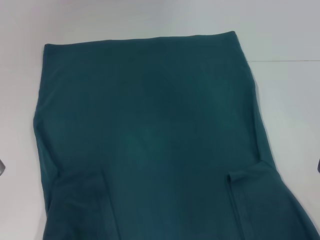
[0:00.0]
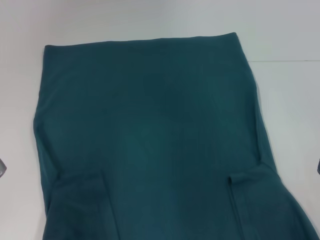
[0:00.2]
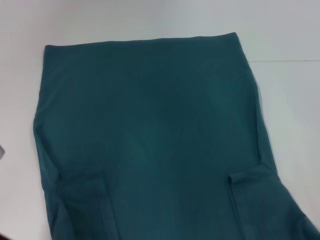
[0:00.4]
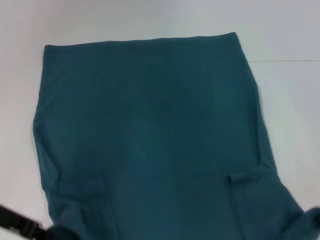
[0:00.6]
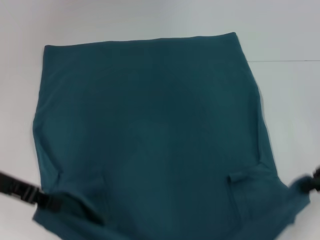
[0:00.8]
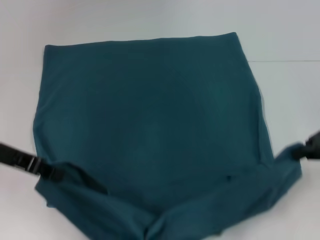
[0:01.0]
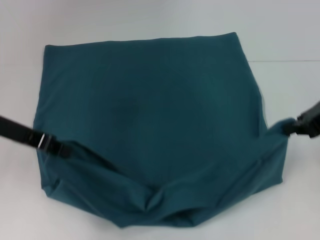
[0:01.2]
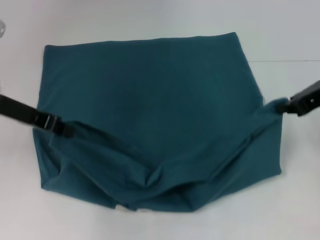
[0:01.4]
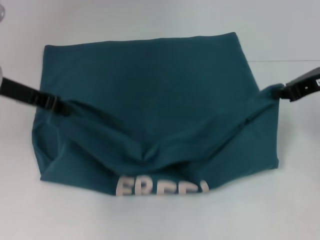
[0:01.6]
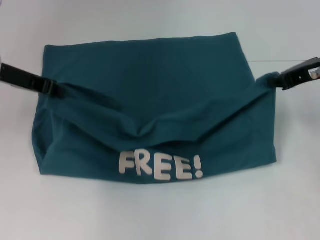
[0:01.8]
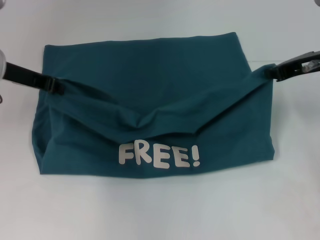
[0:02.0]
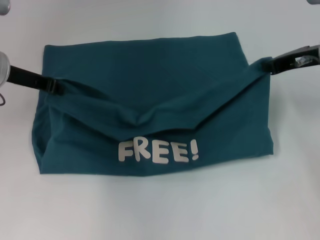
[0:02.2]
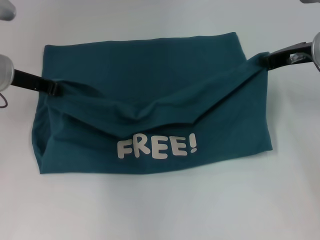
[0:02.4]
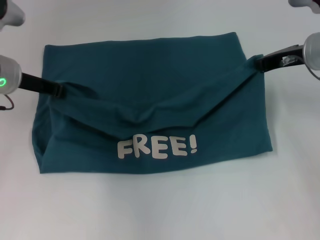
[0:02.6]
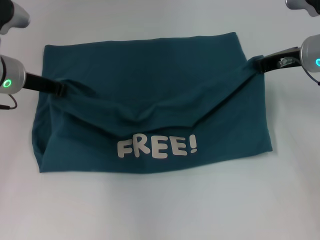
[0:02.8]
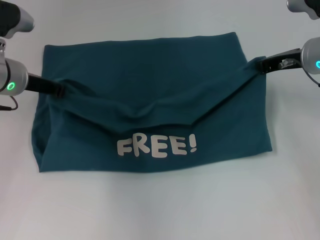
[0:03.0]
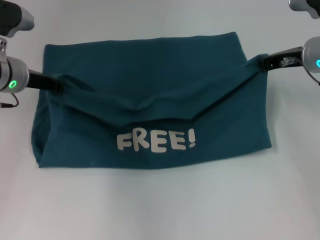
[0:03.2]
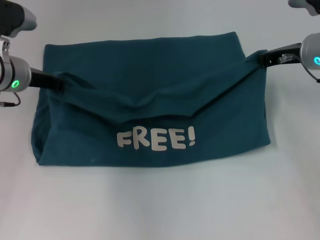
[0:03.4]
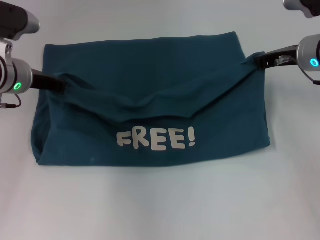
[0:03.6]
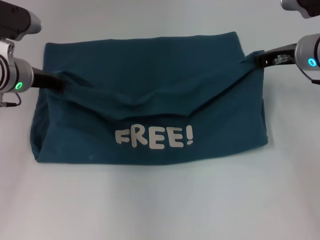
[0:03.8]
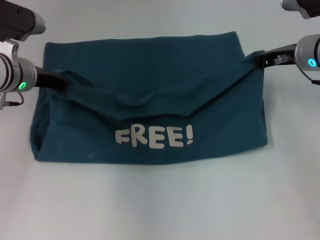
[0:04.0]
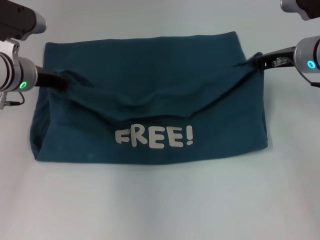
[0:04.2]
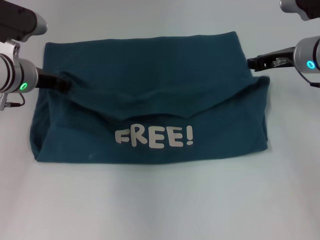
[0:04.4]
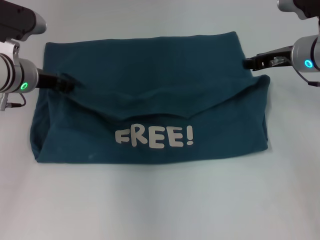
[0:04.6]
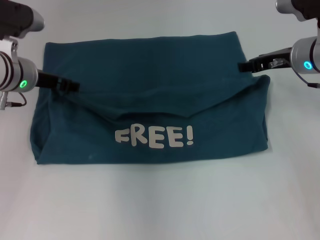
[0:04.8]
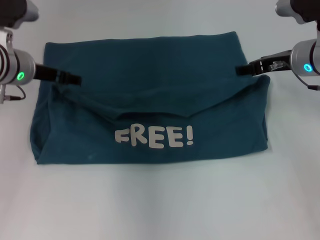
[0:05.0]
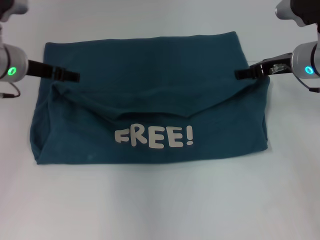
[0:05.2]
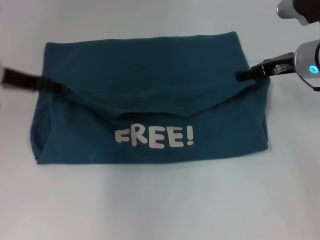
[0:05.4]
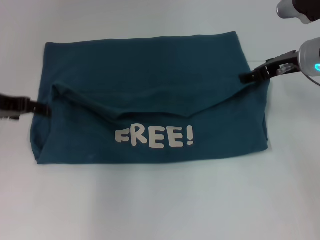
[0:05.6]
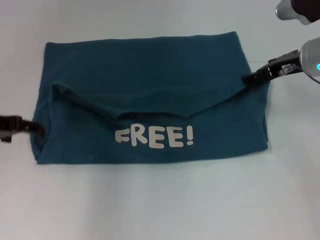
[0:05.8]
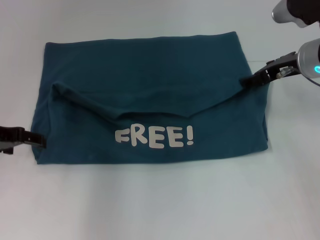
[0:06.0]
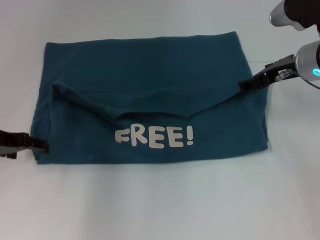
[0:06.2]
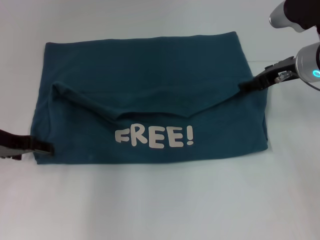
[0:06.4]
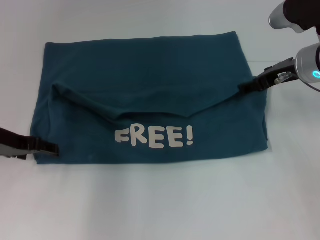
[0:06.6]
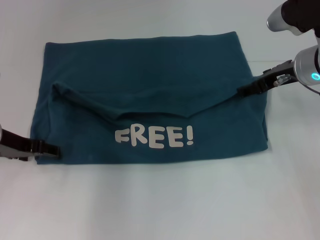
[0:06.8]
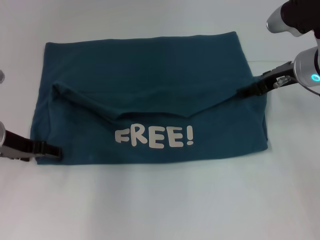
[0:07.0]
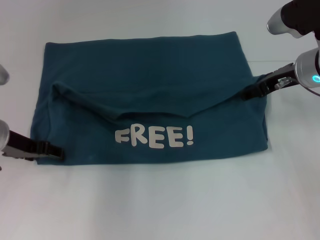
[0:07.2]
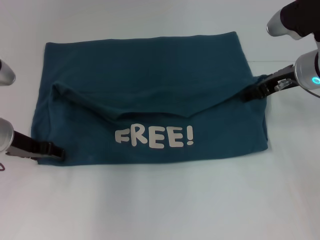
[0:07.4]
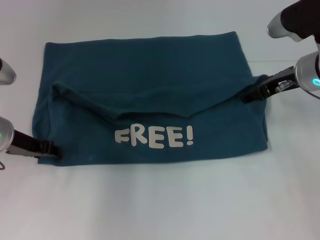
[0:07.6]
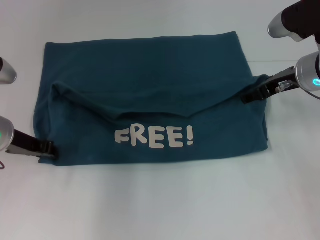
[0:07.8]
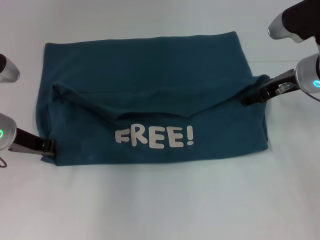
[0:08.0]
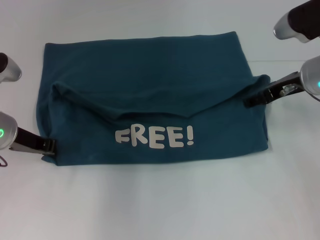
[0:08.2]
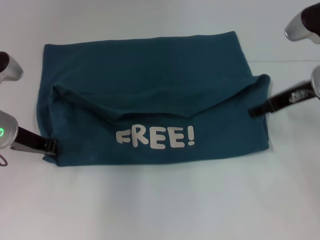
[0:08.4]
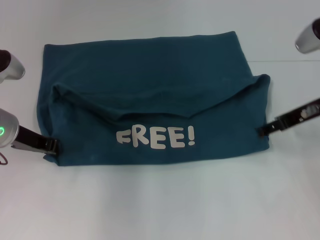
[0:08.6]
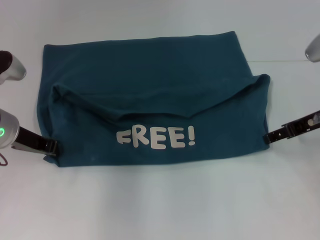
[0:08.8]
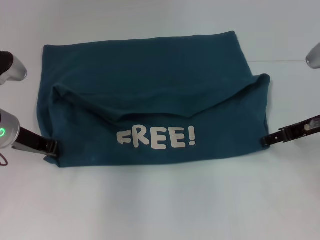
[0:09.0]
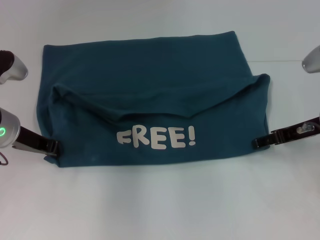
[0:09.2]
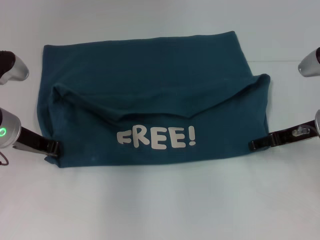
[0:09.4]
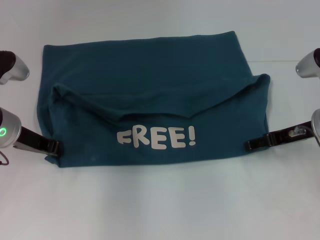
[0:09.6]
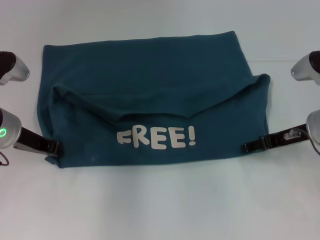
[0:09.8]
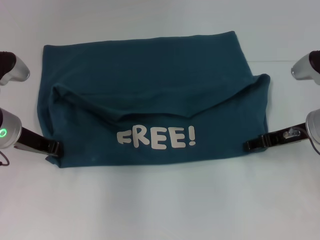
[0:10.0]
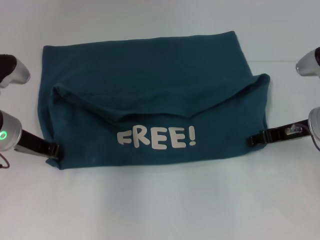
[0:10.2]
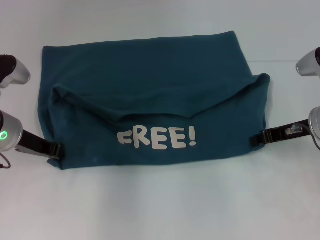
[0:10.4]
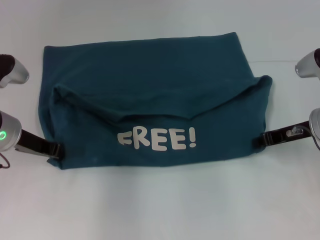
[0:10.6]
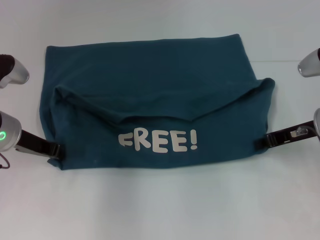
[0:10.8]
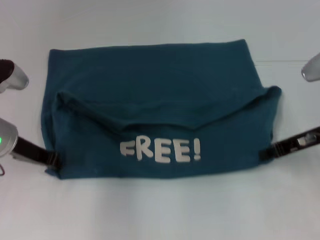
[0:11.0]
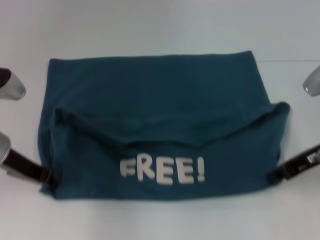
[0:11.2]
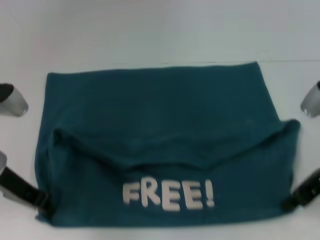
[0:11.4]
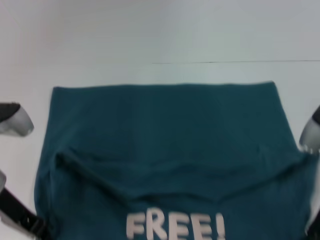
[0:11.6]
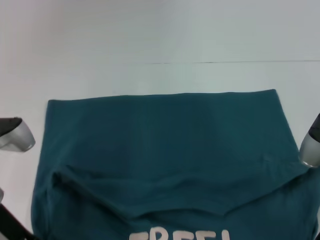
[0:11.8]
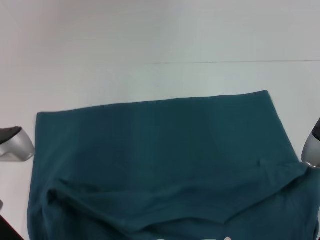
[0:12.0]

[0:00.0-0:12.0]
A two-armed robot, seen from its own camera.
Step, 0:00.0 to 0:05.0: Fold the clothes to the left.
Step, 0:00.0 to 0:05.0: Fold the clothes to the right.
0:00.0 to 0:01.6: Both grippers travel together forward and upward, roughly 15 cm.
0:01.6 to 0:03.0: The left gripper moves approximately 5 cm, while the right gripper is displaced forward and downward by about 10 cm.
0:03.0 to 0:04.4: The grippers make only small movements.
0:04.4 to 0:06.0: The right gripper opens; the left gripper shifts about 10 cm backward and to the left, and opens.
0:06.0 to 0:07.6: The left gripper ends up approximately 5 cm from where it was.
0:07.6 to 0:09.0: The right gripper heads backward, covering roughly 5 cm. The left gripper closes.
0:09.0 to 0:10.4: The right gripper closes its fingers.
0:10.4 to 0:12.0: Both grippers move backward, about 10 cm. The right gripper closes its fingers.

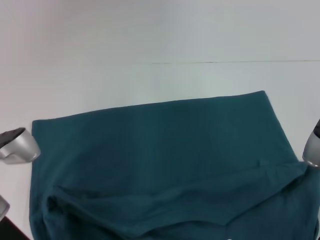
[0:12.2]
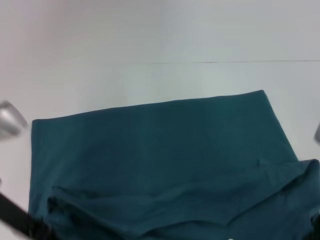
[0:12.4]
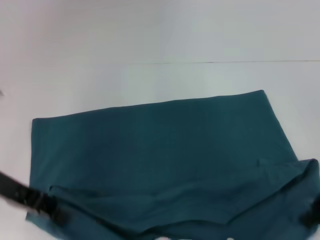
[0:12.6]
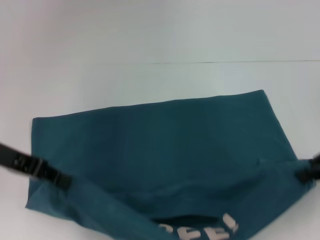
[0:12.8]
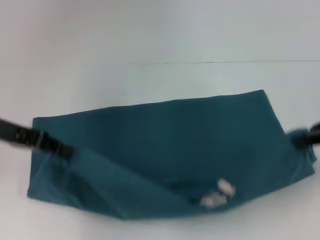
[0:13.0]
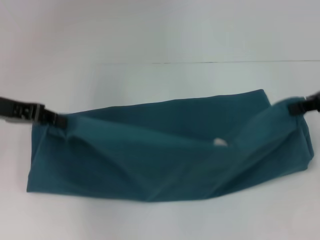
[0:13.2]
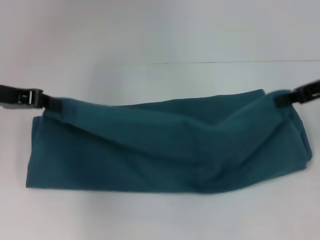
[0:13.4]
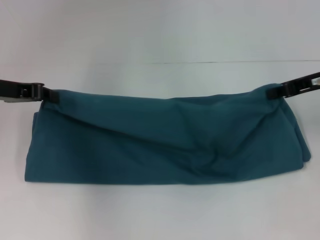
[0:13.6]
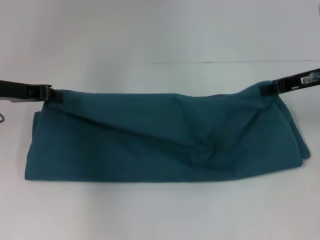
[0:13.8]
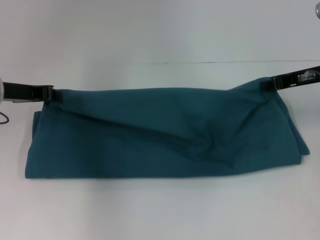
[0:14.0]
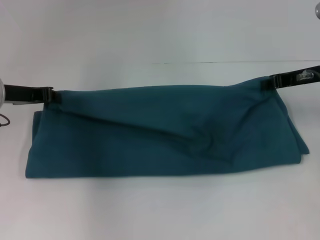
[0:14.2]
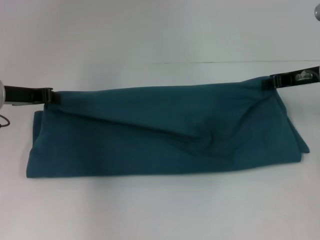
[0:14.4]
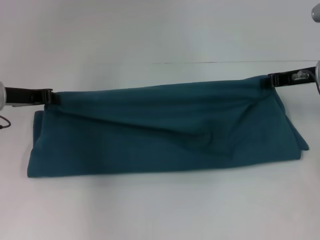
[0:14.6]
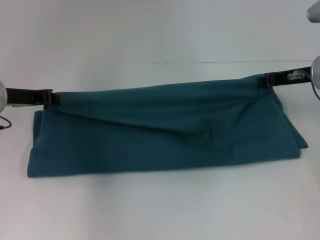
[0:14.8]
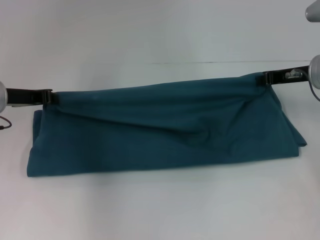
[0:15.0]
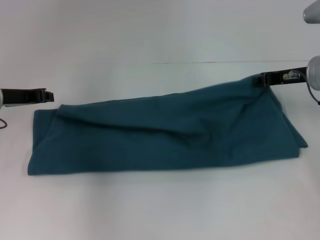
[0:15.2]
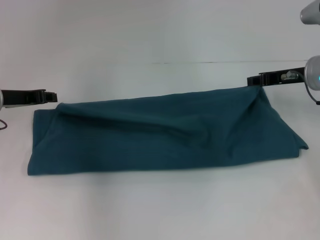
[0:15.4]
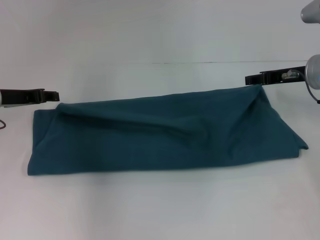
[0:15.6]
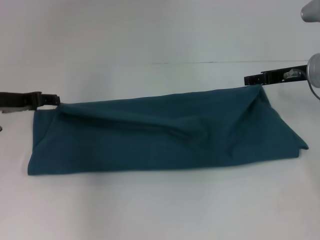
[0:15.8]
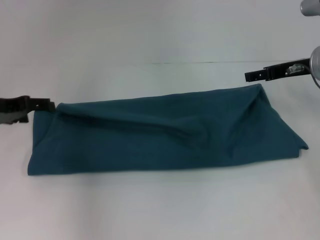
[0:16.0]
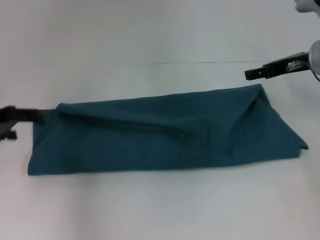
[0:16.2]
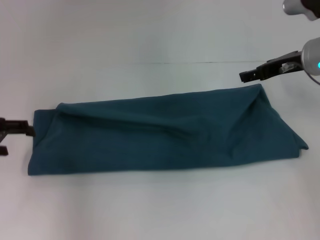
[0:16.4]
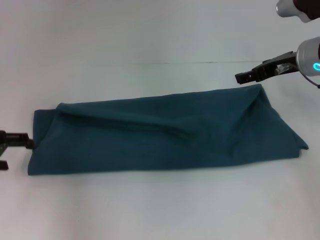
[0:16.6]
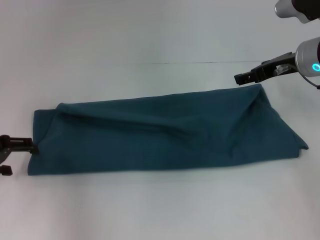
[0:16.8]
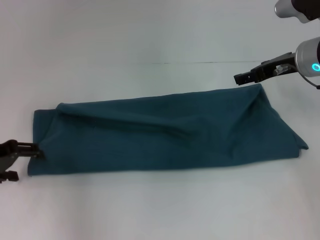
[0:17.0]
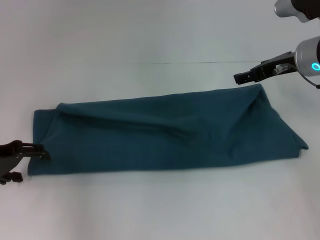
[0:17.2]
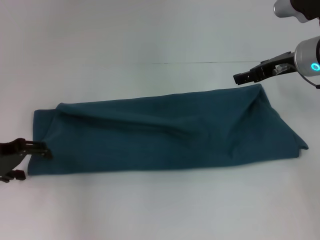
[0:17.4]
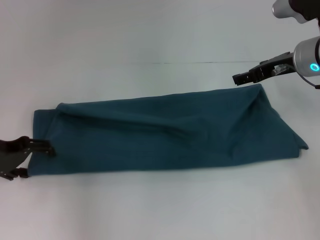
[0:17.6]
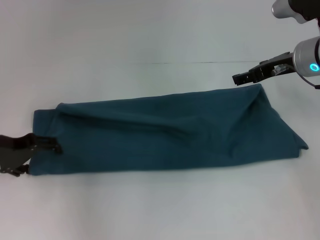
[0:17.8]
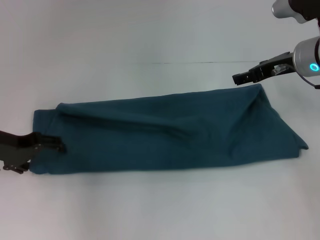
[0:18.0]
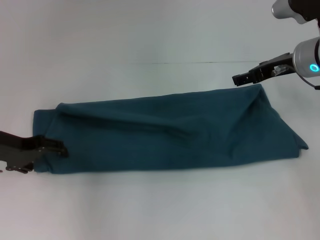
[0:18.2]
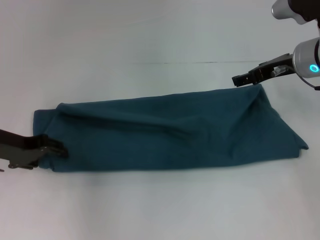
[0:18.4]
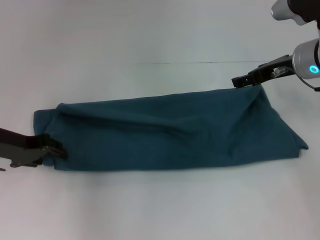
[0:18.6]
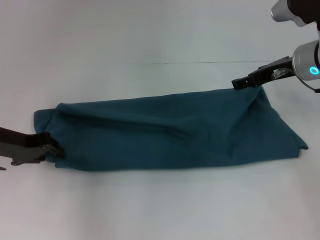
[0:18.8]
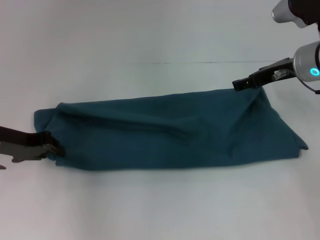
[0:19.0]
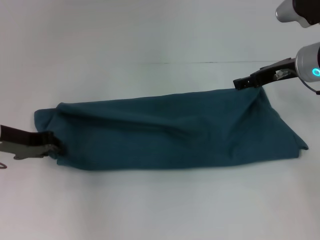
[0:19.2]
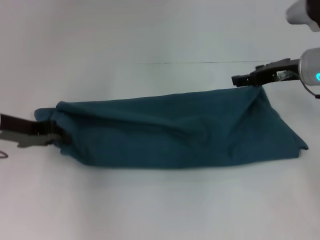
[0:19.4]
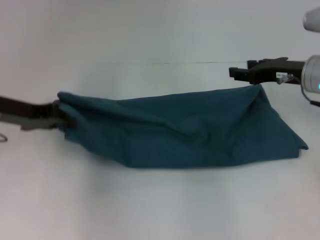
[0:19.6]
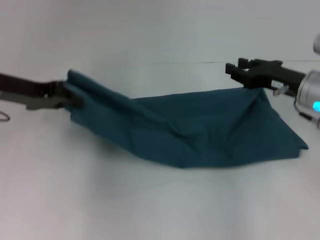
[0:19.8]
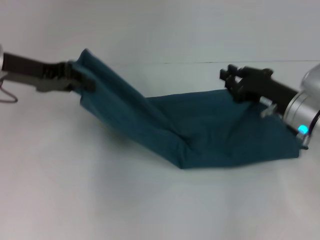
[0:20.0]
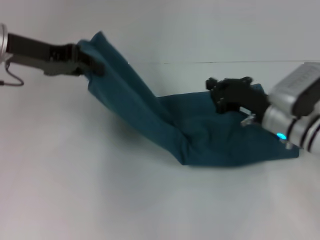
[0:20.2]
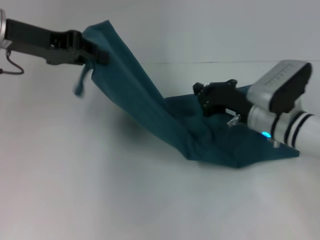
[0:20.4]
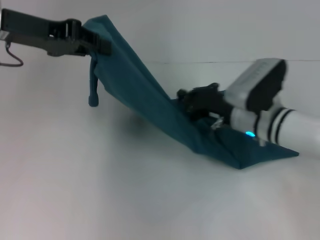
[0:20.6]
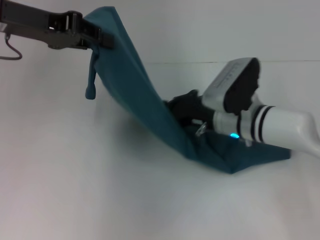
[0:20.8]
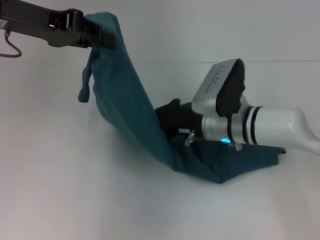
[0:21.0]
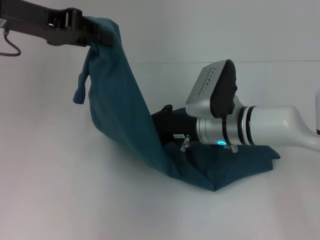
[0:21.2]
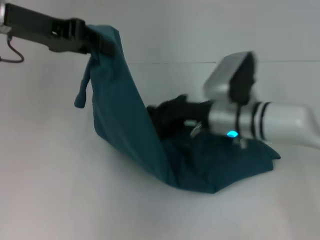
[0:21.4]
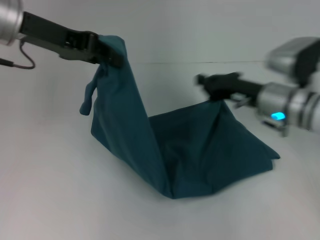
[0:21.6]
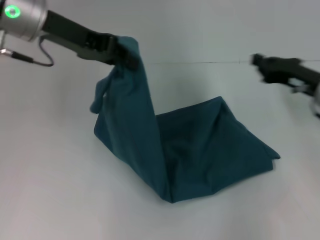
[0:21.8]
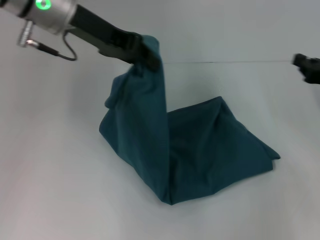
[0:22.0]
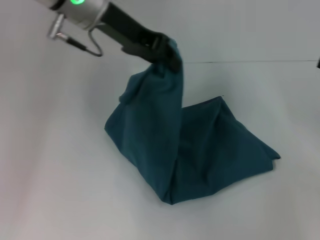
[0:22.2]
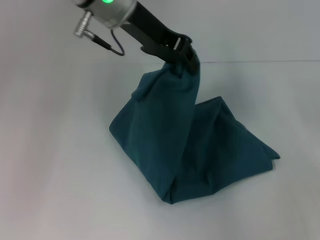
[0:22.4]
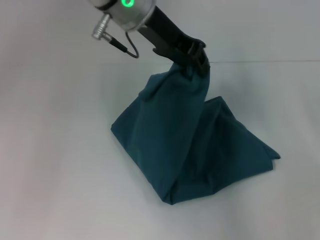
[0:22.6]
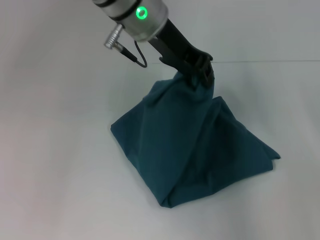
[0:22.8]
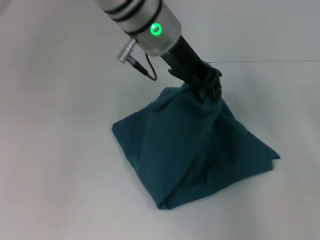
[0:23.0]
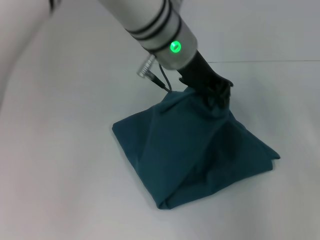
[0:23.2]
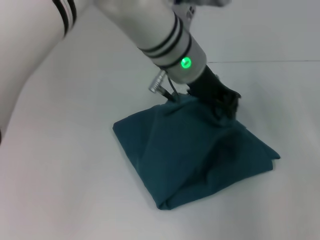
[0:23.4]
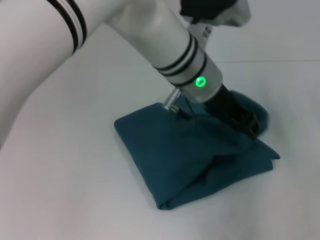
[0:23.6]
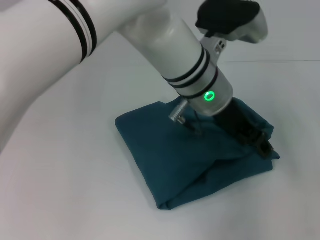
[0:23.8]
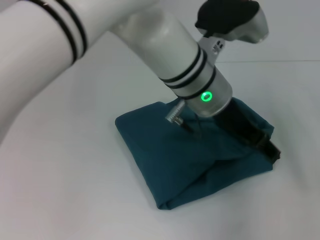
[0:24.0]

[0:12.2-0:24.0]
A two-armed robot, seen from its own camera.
Step, 0:12.4 to 0:15.4: Fold the clothes to the left.
Step, 0:12.4 to 0:15.4: Fold the clothes to the right.
Step, 0:15.6 to 0:21.2: Press the middle of the clothes with your right hand.
Step, 0:21.4 to 0:23.8: Fold the clothes to the left.
0:12.2 to 0:13.6: The right gripper heads forward and upward, covering about 10 cm. The left gripper travels forward, upward and to the left by roughly 15 cm.
0:13.6 to 0:15.2: The two grippers go about 5 cm downward.
0:15.2 to 0:16.6: The left gripper shifts some 10 cm backward and to the left, and opens its fingers, while the right gripper opens.
0:16.6 to 0:18.2: The left gripper changes place by some 5 cm.
0:18.2 to 0:19.6: The left gripper moves about 5 cm, and closes.
0:19.6 to 0:21.0: The right gripper moves to the left and downward, roughly 15 cm, and closes, while the left gripper heads upward, covering approximately 10 cm.
0:21.0 to 0:22.6: The right gripper is displaced to the right by approximately 30 cm. Meanwhile the left gripper moves to the right, some 20 cm.
0:22.6 to 0:24.0: The left gripper goes some 15 cm to the right, downward and backward, and opens.
